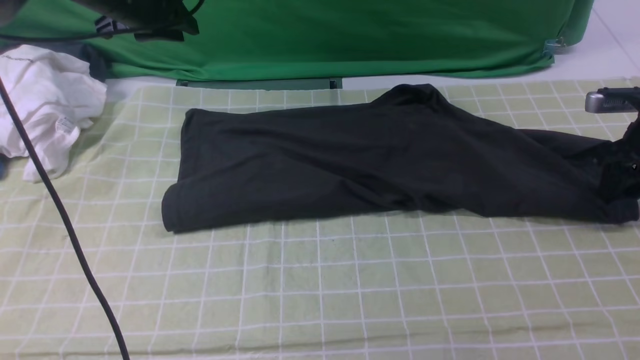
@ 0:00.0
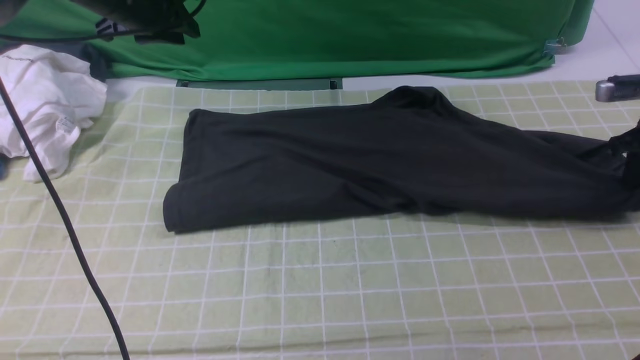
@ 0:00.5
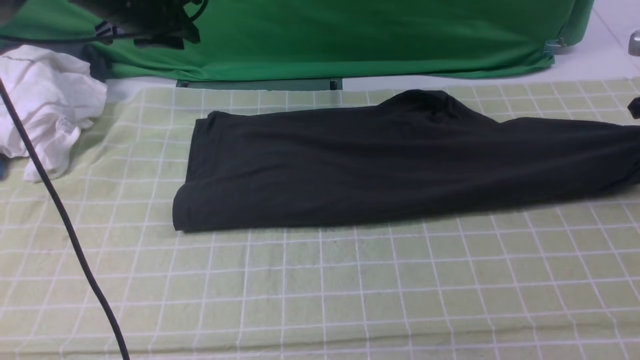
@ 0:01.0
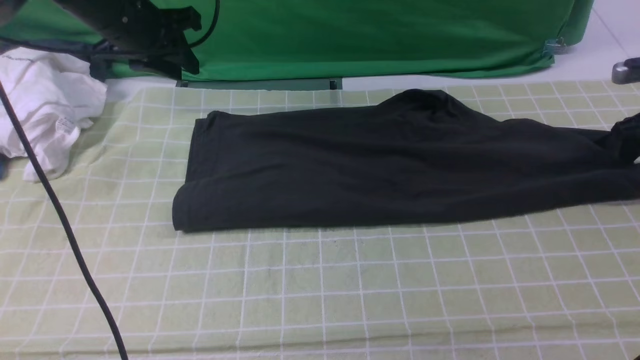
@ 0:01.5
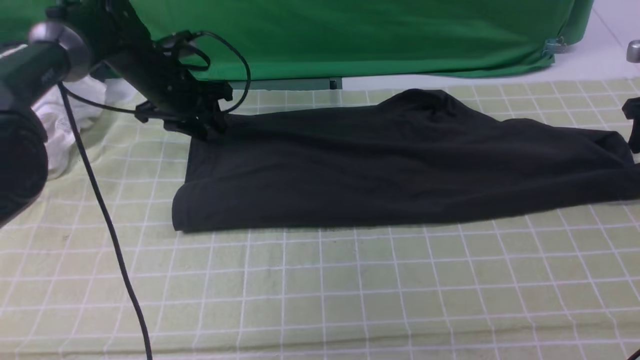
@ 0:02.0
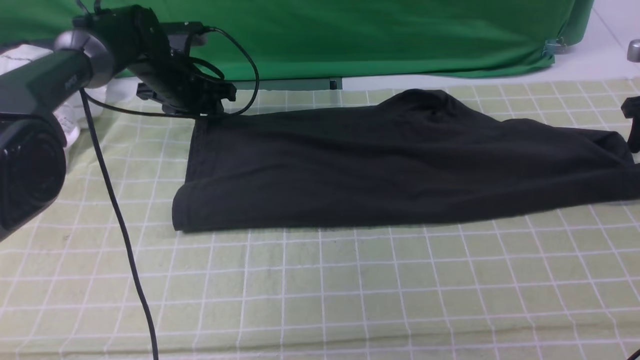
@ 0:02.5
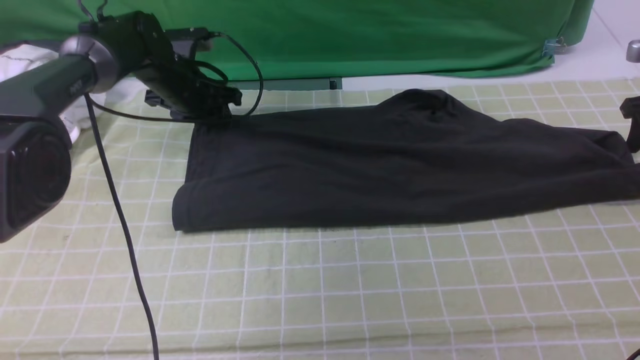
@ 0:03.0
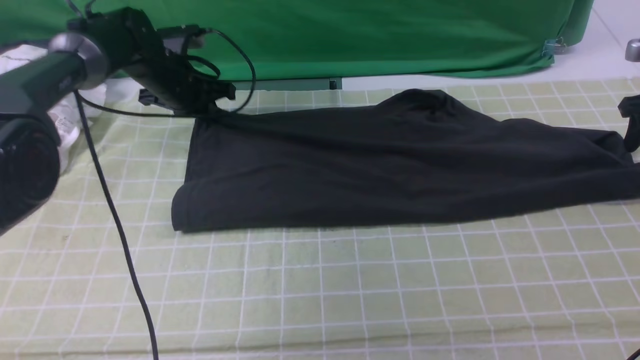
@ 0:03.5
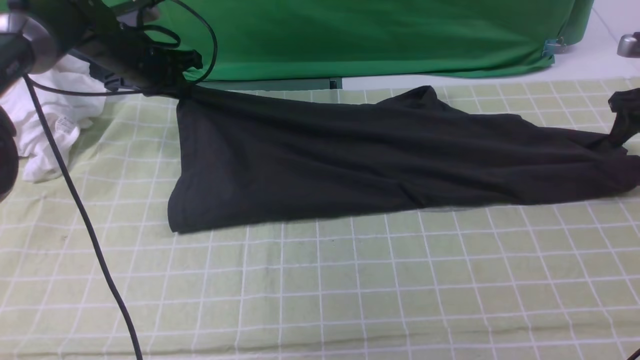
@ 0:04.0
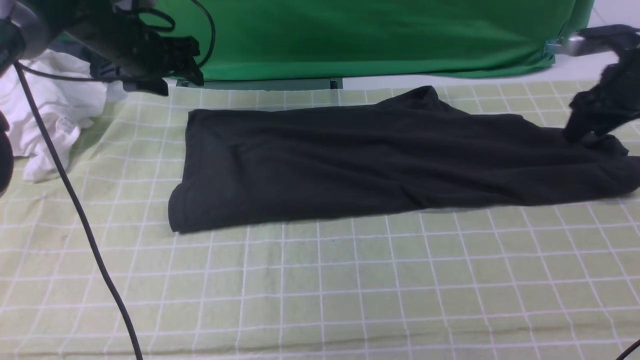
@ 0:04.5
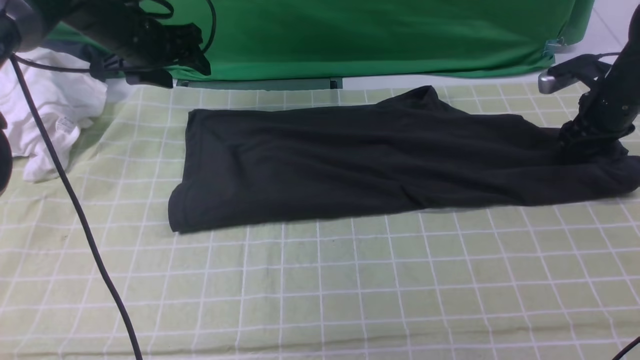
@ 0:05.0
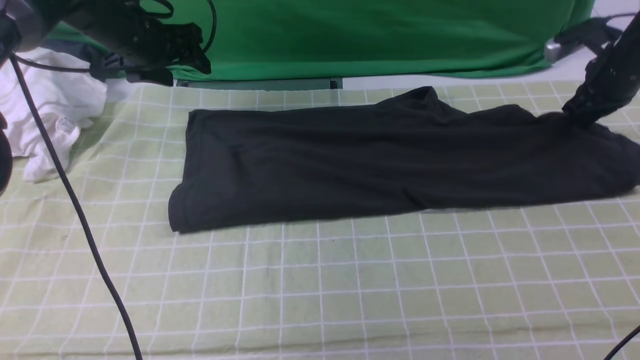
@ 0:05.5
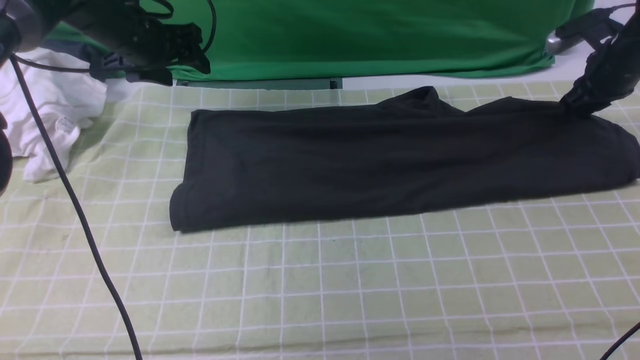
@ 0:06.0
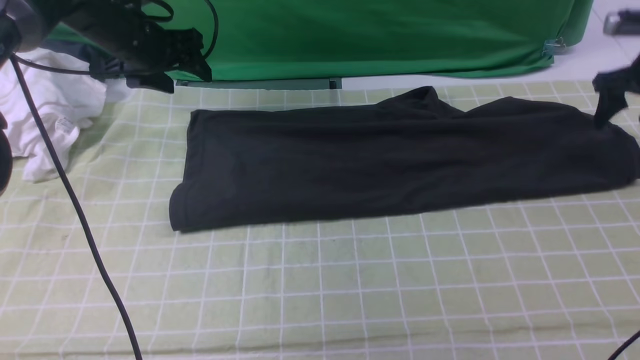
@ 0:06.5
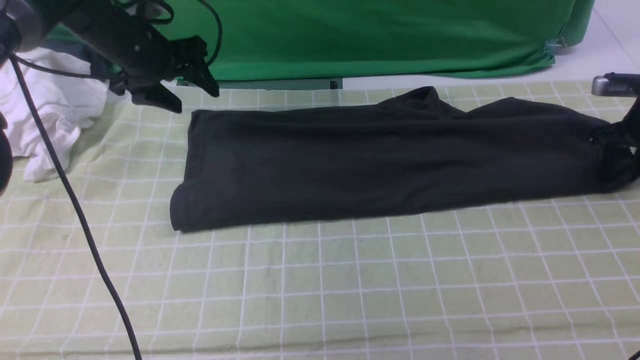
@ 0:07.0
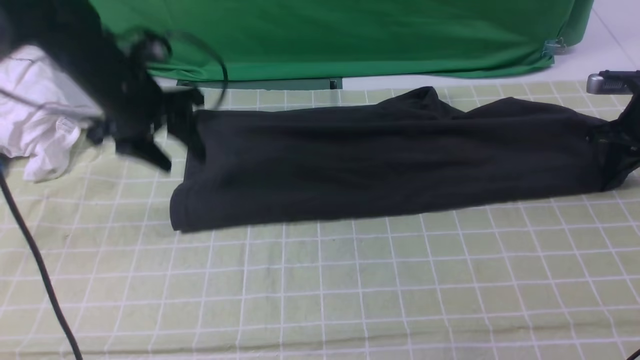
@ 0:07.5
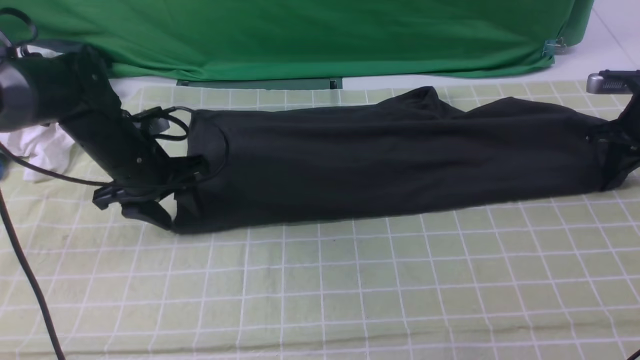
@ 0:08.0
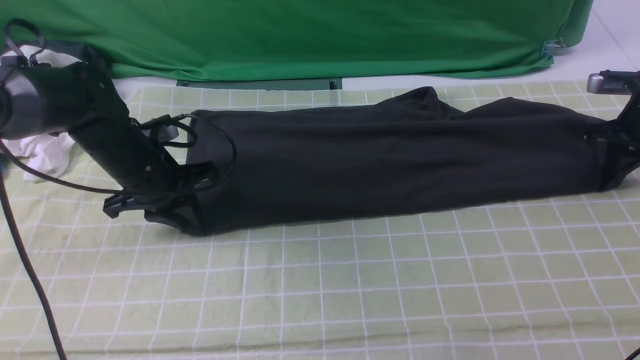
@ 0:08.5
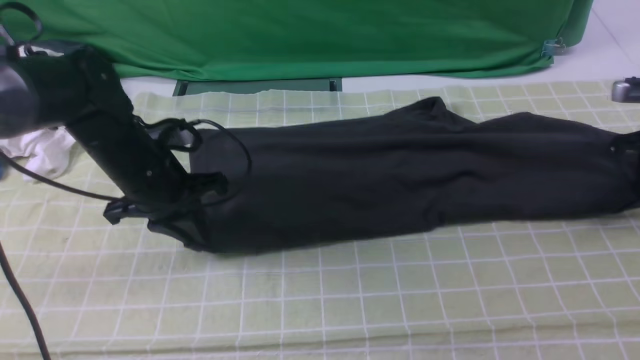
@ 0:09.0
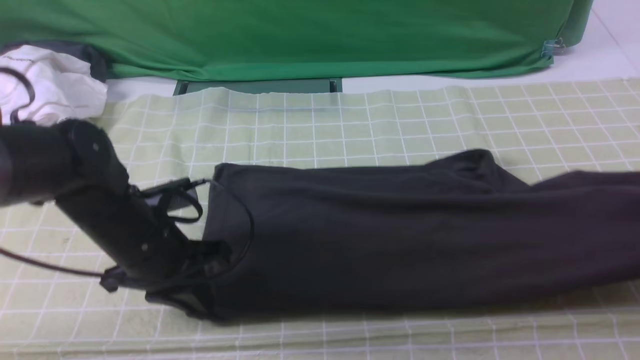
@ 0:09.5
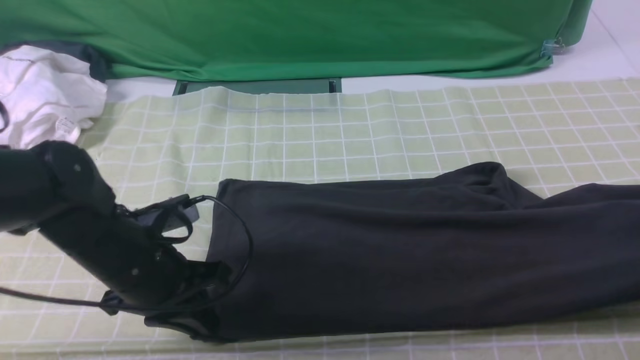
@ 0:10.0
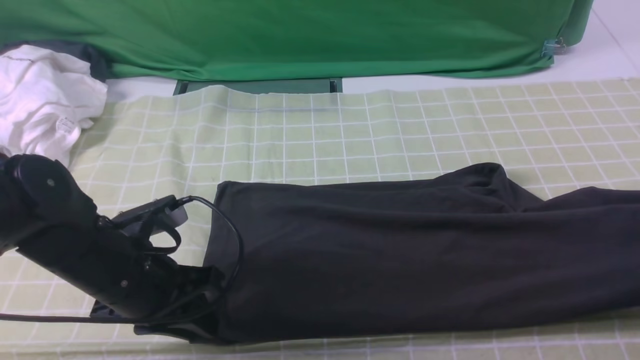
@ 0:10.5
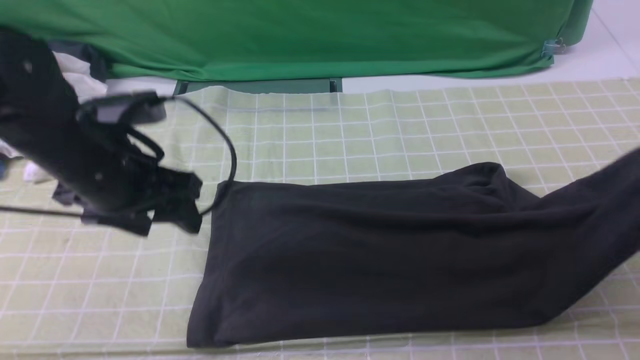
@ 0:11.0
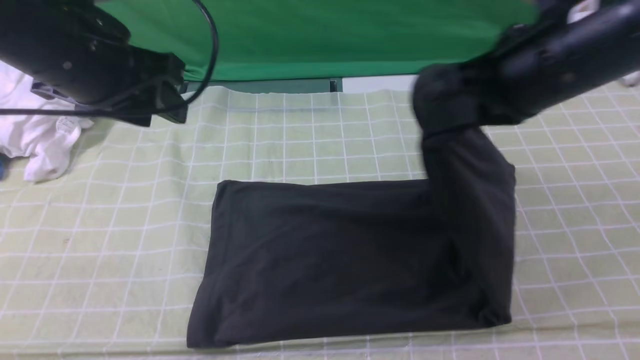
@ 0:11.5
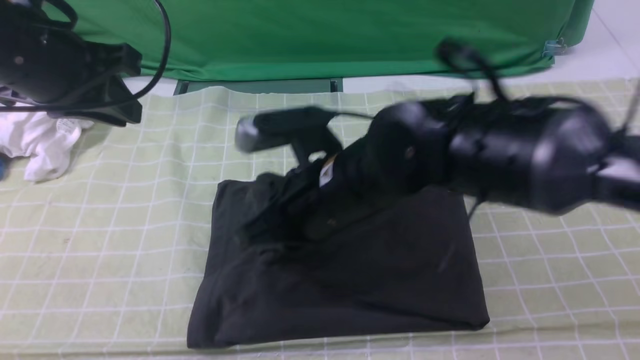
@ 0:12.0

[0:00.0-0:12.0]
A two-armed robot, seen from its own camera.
Step, 0:00.0 to 0:07.0: use the right arm to clamp the right edge of the fabric.
0:00.0 to 0:02.0: The right gripper ends up some 5 cm from where it was, and opens, while the left gripper goes approximately 10 cm downward.
0:02.0 to 0:04.0: The left gripper closes its fingers.
0:04.0 to 0:06.0: The right gripper heads to the left, covering some 5 cm, and closes its fingers; the left gripper opens.
0:06.0 to 0:08.0: The left gripper is displaced backward and downward by about 15 cm. The right gripper goes roughly 5 cm downward, and closes.
0:08.0 to 0:10.0: The left gripper moves backward, about 15 cm, and closes up. The right gripper shifts roughly 20 cm backward and upward.
0:10.0 to 0:12.0: The right gripper travels to the left by roughly 40 cm. Meanwhile the left gripper goes roughly 20 cm upward, and opens, then closes again.

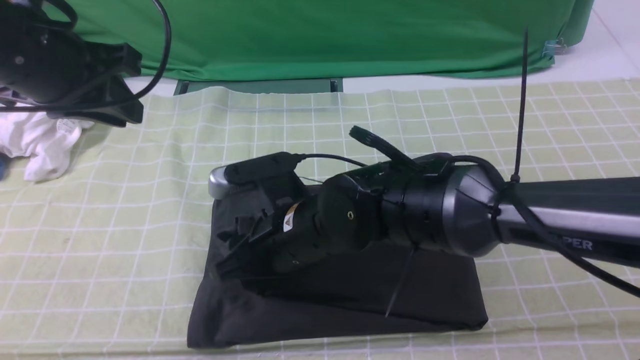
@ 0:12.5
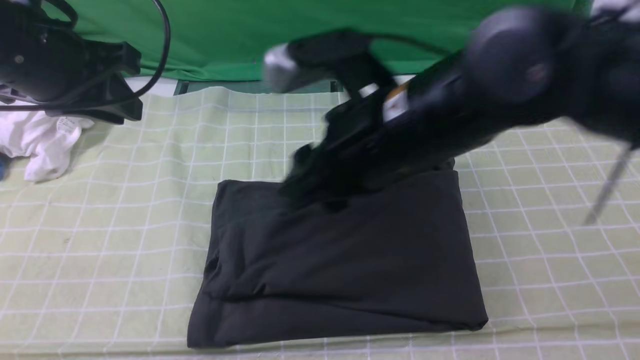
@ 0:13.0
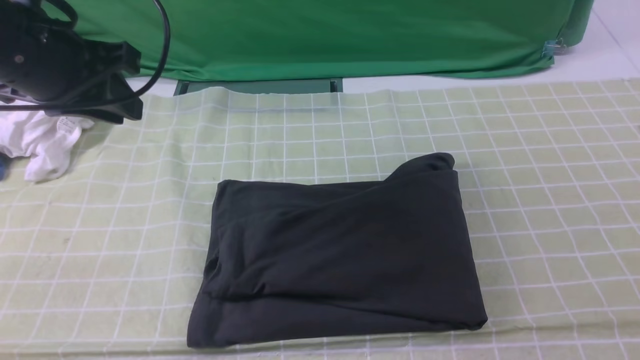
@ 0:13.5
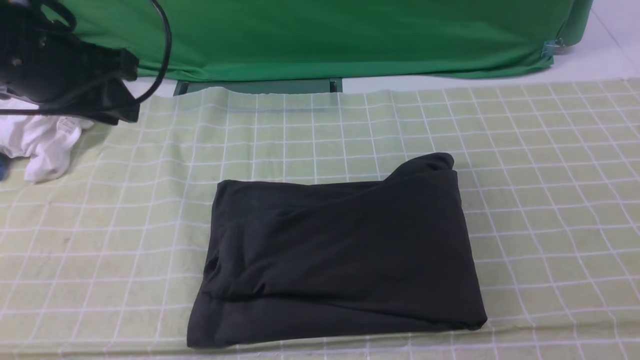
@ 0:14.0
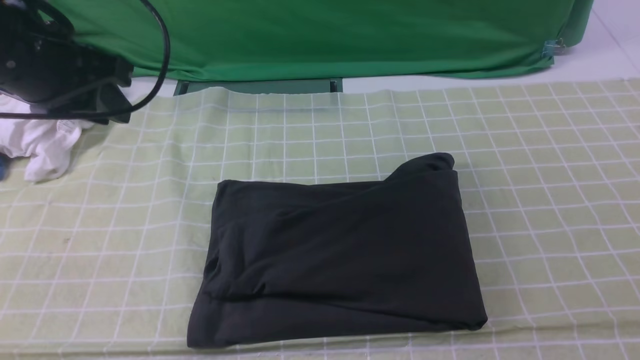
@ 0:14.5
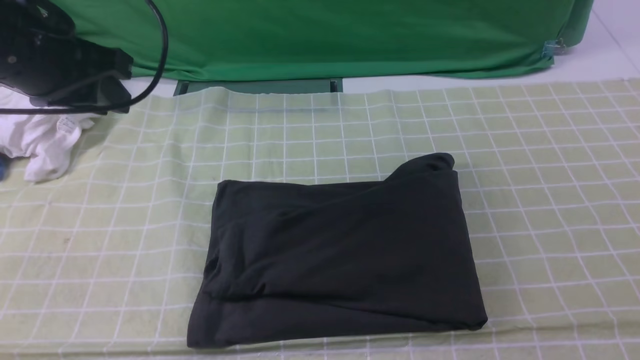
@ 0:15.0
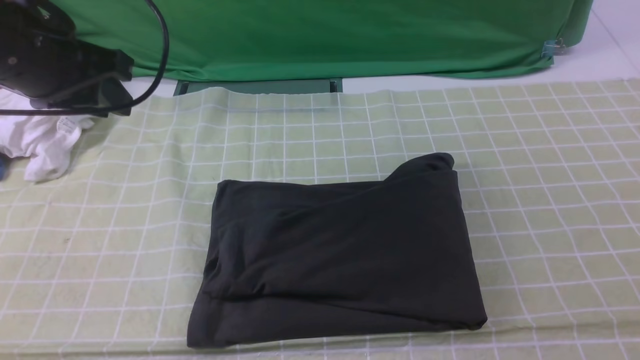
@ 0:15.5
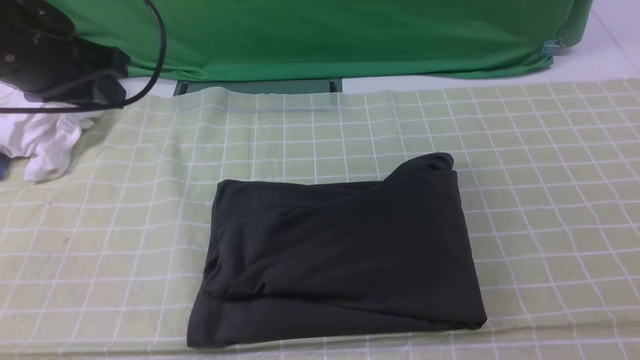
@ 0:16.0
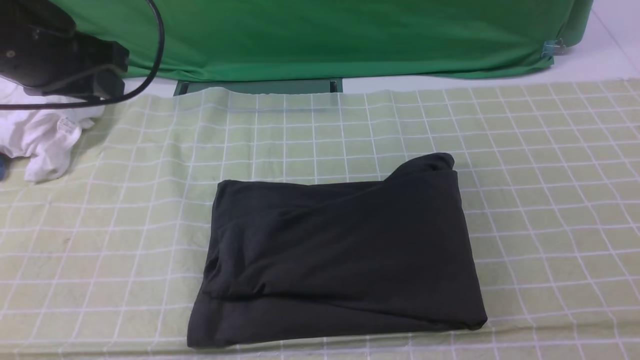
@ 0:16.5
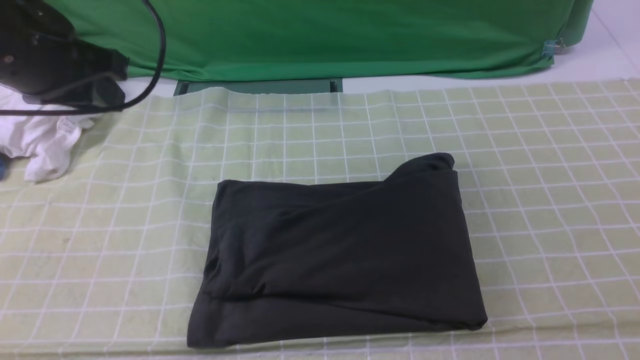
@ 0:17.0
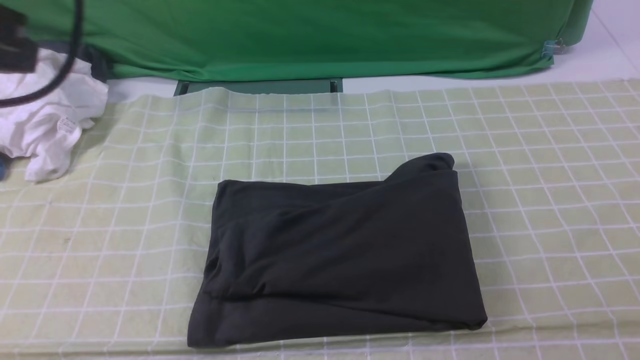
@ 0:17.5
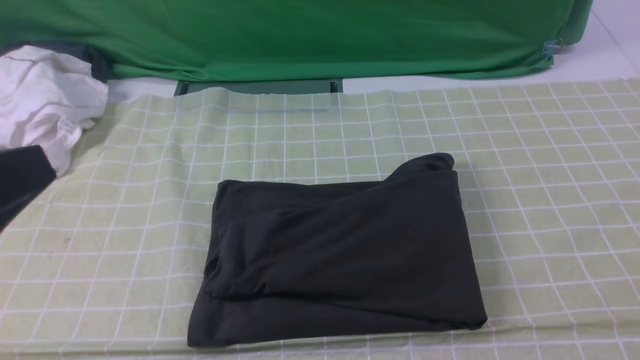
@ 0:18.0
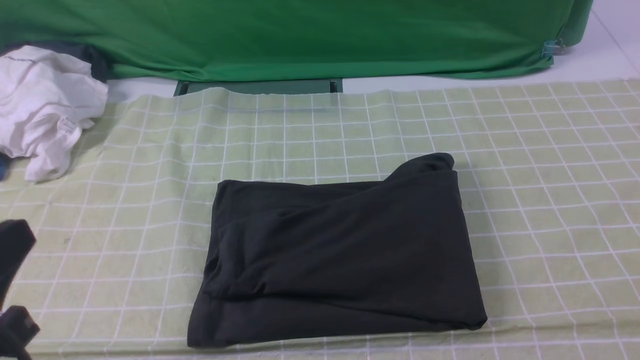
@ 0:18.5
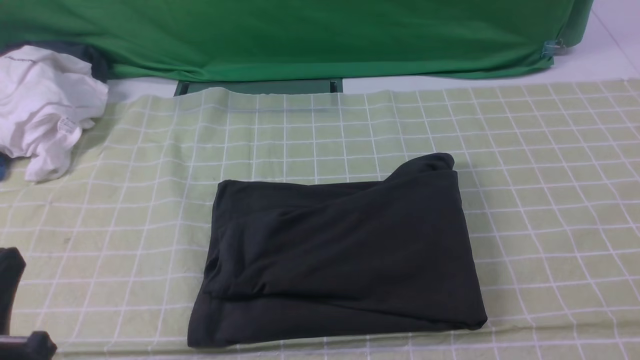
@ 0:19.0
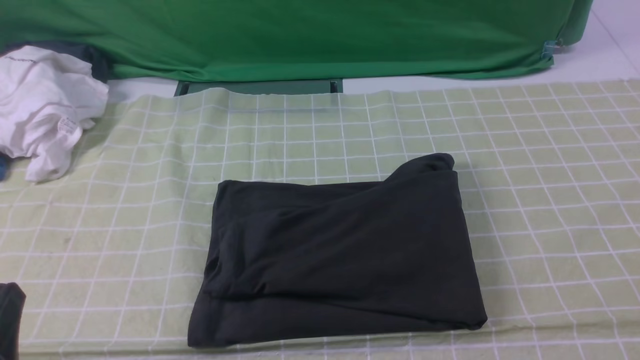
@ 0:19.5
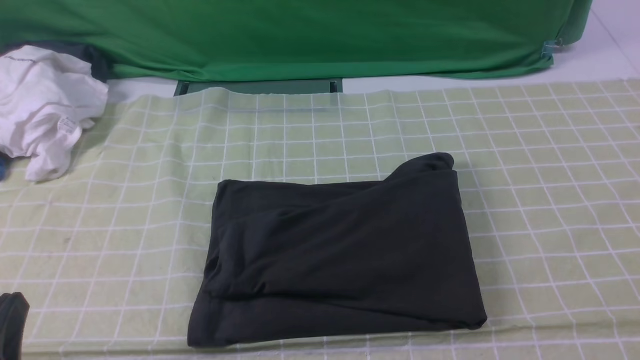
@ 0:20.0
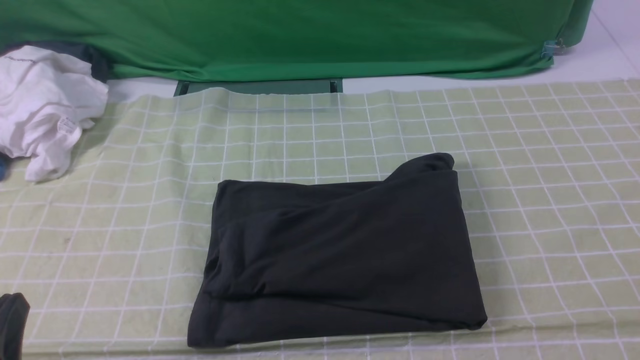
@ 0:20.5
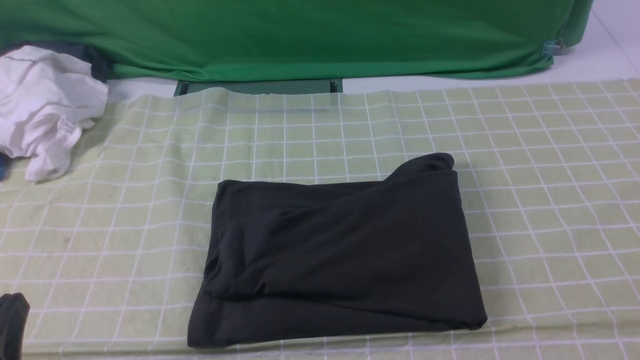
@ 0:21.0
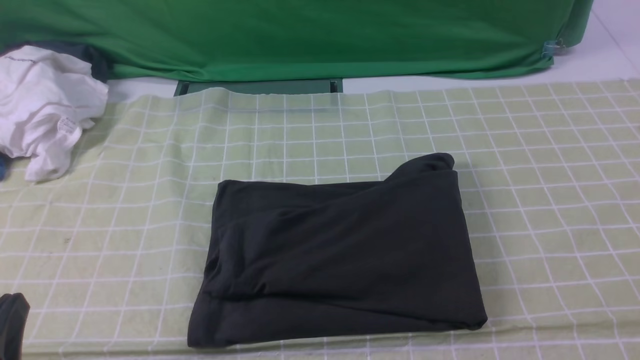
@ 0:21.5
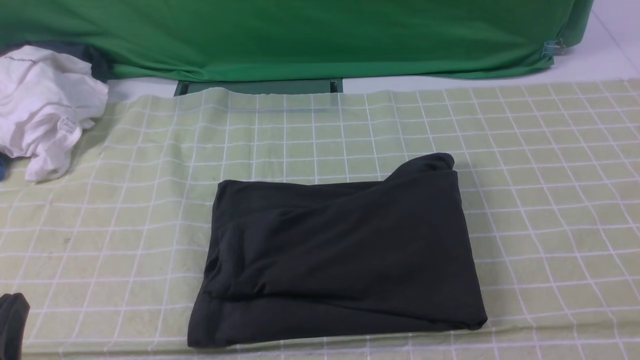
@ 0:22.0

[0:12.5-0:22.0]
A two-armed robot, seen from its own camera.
0:12.5 to 0:14.5: The right gripper is displaced to the right and backward by about 35 cm, and closes.
0:16.5 to 0:18.0: The left gripper moves backward, roughly 25 cm, and closes its fingers.
0:18.0 to 0:20.0: The left gripper shifts roughly 20 cm downward.
0:20.0 to 0:22.0: Neither gripper changes place.
